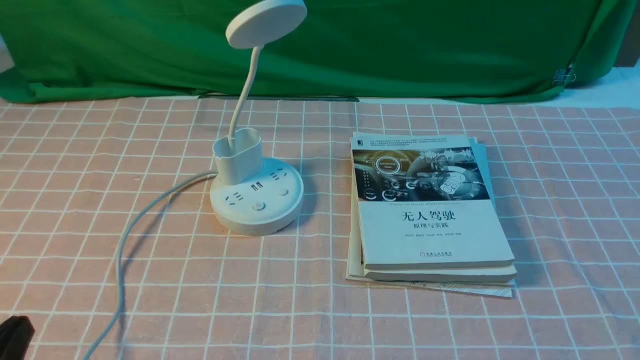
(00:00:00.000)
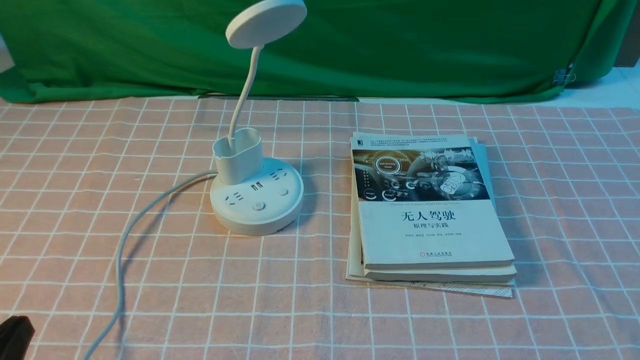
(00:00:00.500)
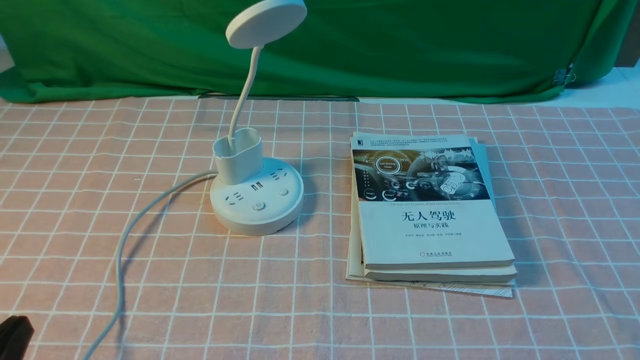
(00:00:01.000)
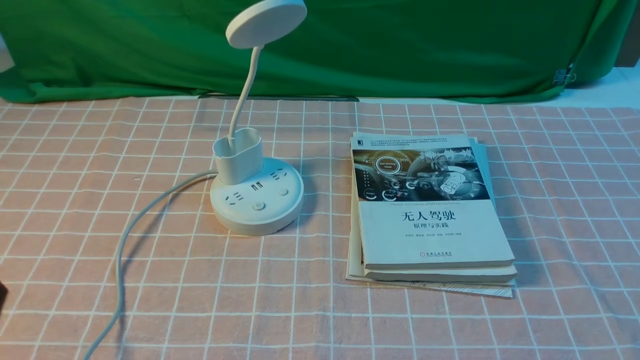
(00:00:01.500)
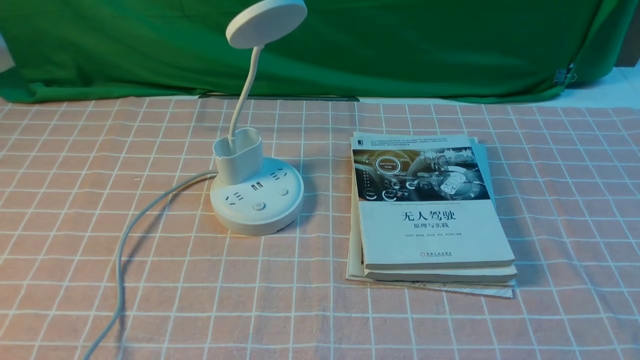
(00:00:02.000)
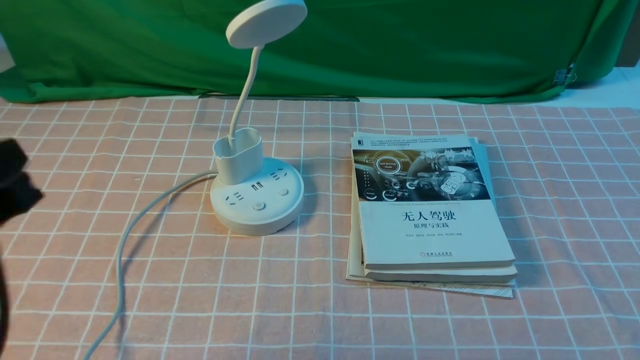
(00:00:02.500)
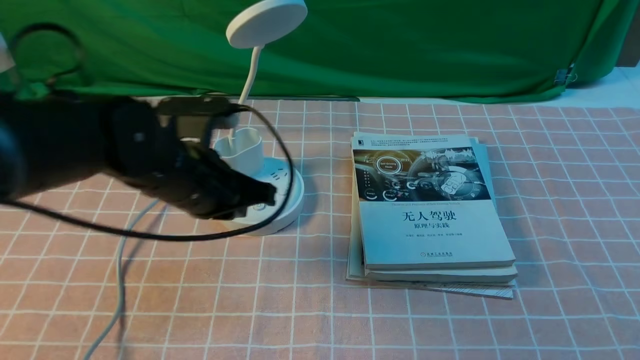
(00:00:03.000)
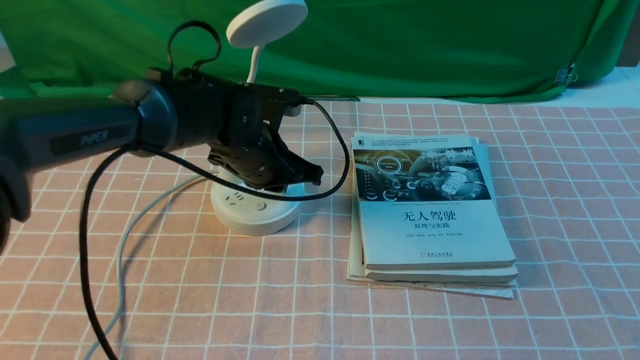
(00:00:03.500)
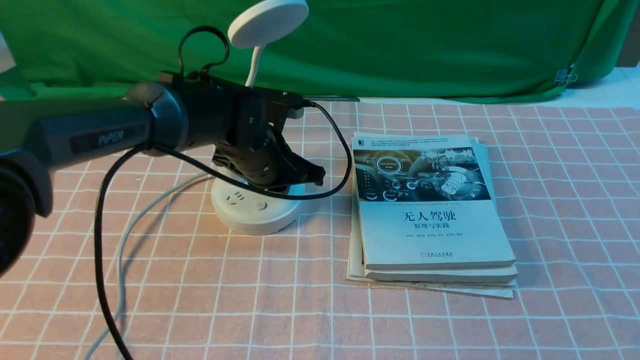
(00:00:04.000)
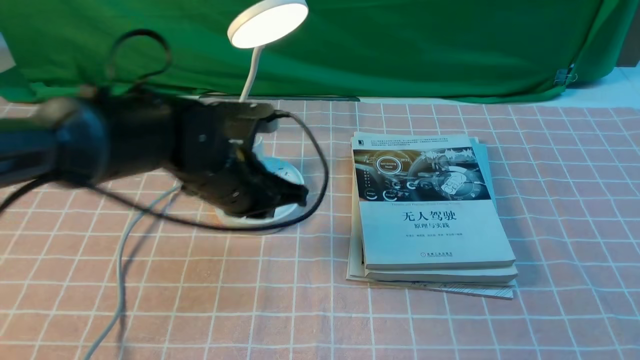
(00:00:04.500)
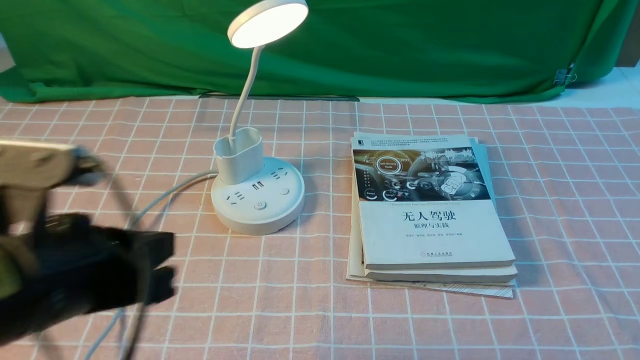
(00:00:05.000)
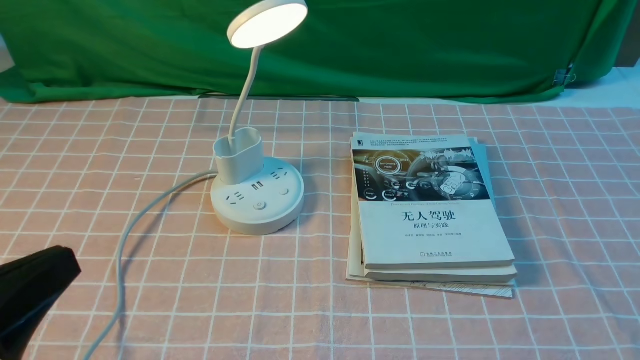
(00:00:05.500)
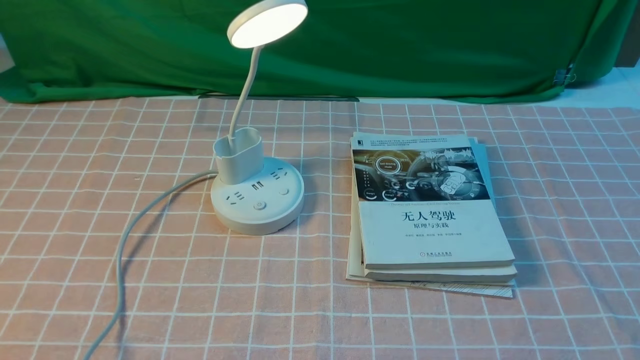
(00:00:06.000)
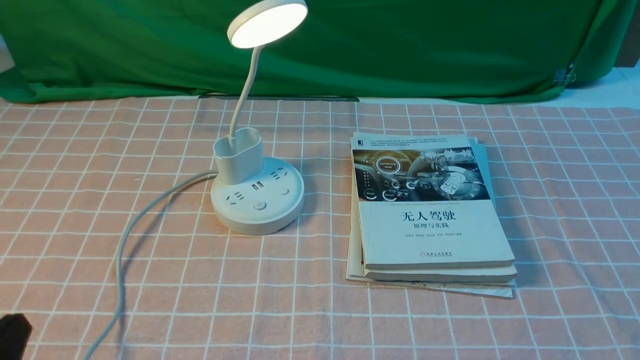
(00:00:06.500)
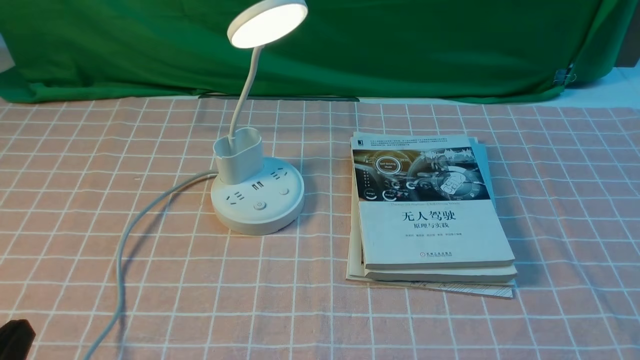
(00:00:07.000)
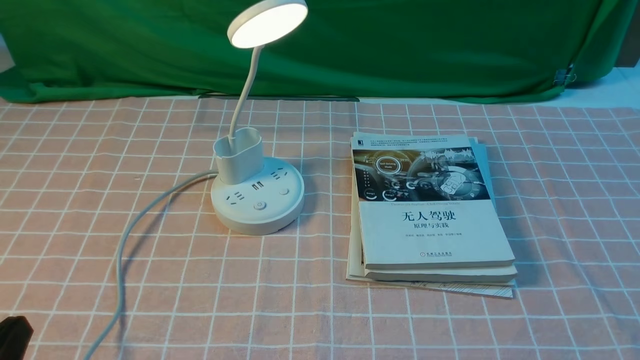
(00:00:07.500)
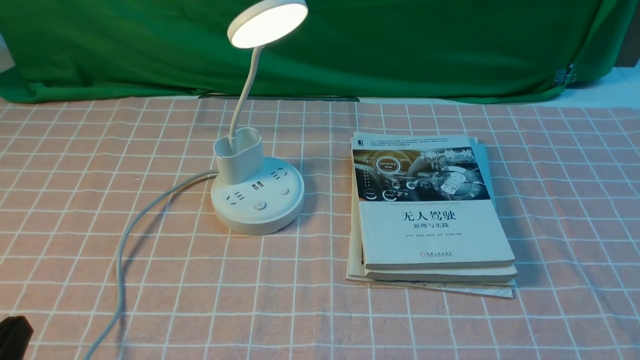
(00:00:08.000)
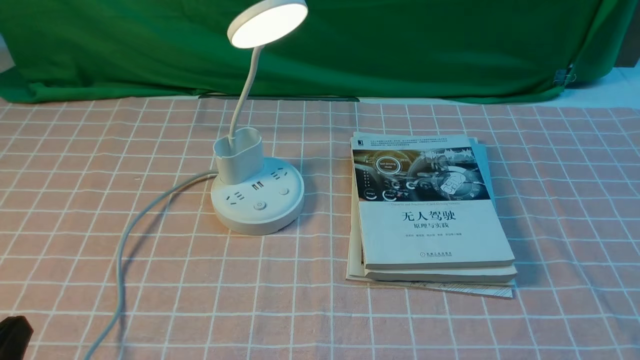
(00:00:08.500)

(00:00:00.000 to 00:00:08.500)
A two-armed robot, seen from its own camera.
Step, 00:00:00.000 - 00:00:04.500: use the left arm to press the button switch on the lamp holder.
00:00:02.000 - 00:00:04.000: The left gripper moves forward and to the right, some 40 cm.
00:00:04.000 - 00:00:06.500: The left gripper heads backward and to the left, covering approximately 40 cm.
00:00:06.500 - 00:00:08.500: Both grippers stay about where they are.
